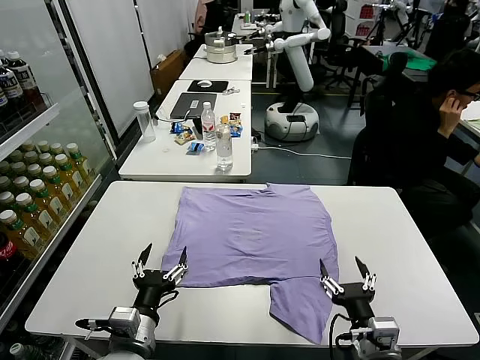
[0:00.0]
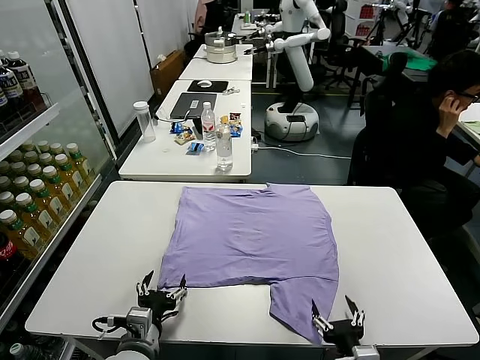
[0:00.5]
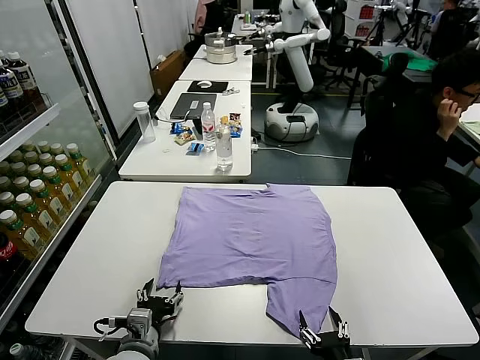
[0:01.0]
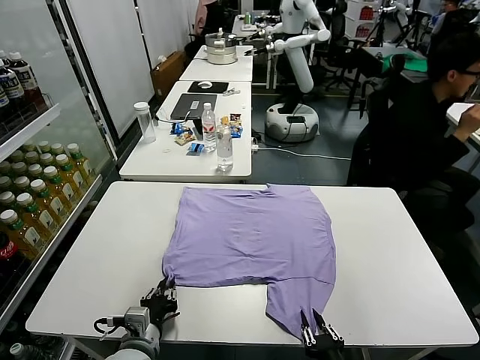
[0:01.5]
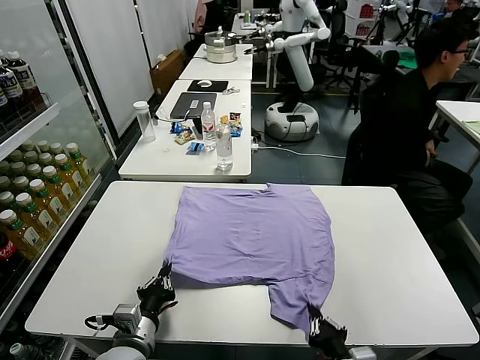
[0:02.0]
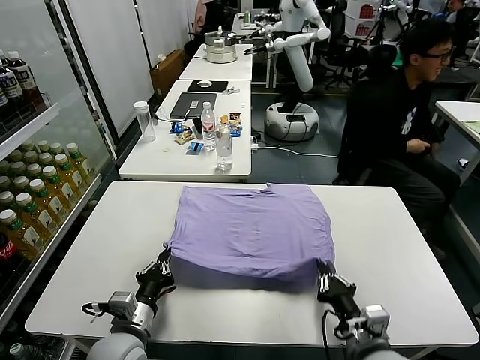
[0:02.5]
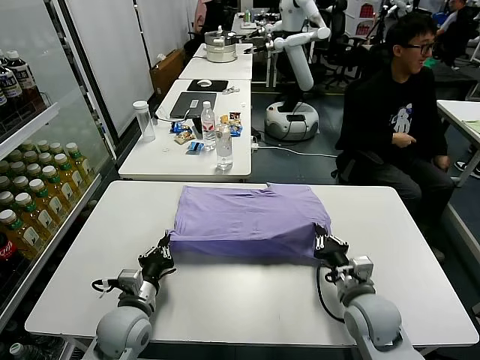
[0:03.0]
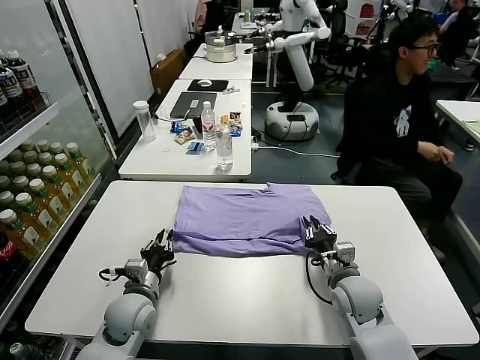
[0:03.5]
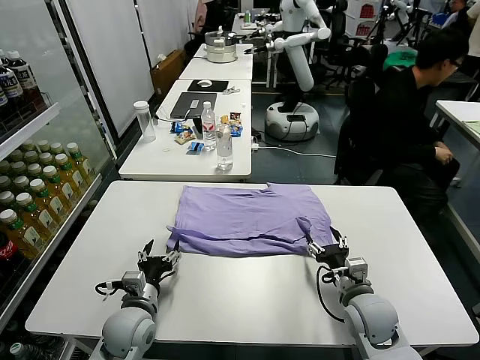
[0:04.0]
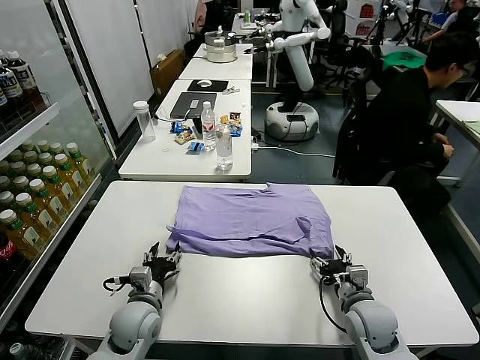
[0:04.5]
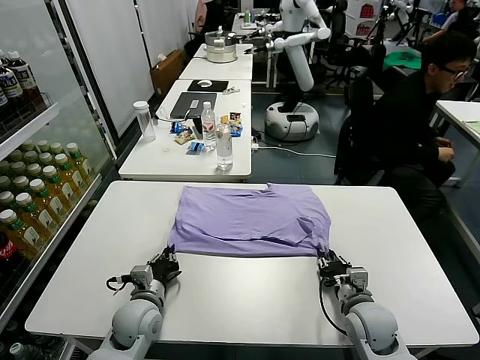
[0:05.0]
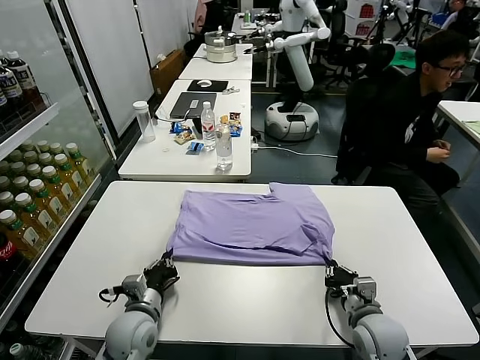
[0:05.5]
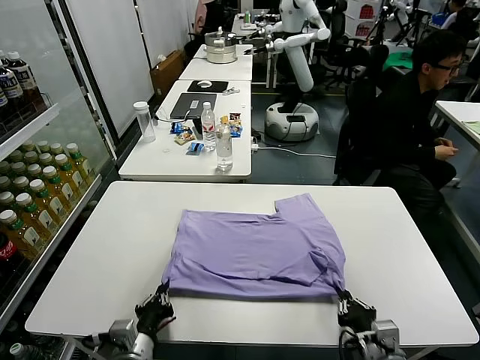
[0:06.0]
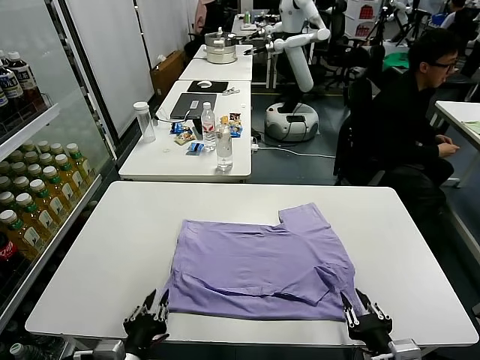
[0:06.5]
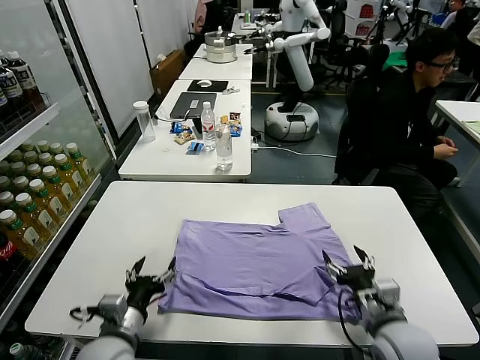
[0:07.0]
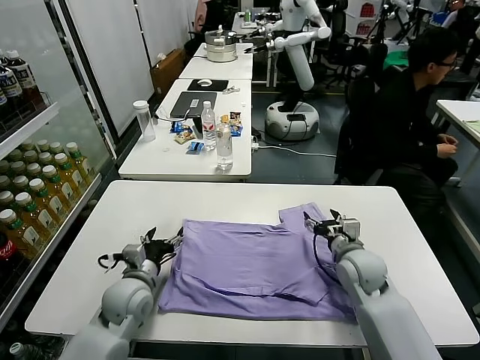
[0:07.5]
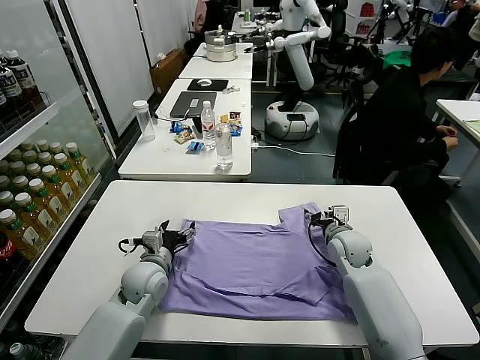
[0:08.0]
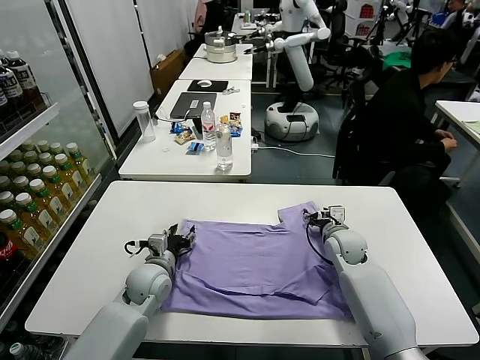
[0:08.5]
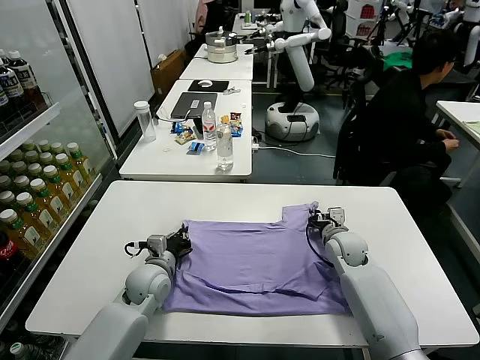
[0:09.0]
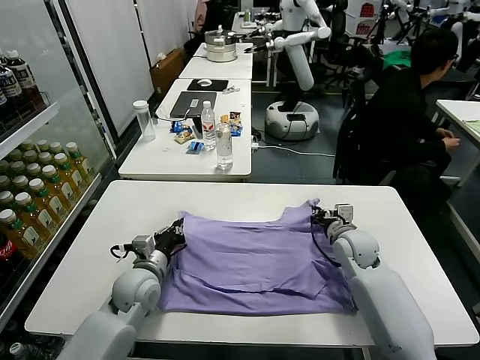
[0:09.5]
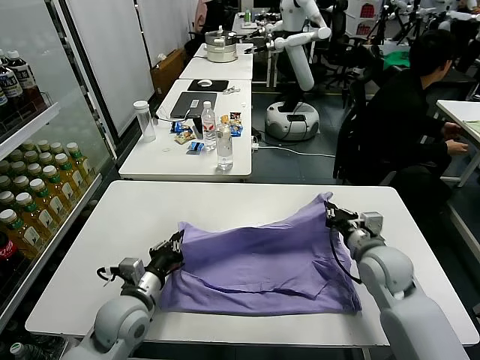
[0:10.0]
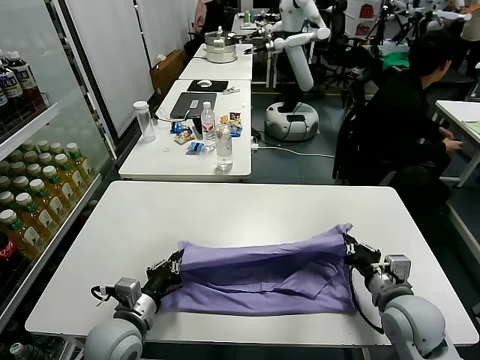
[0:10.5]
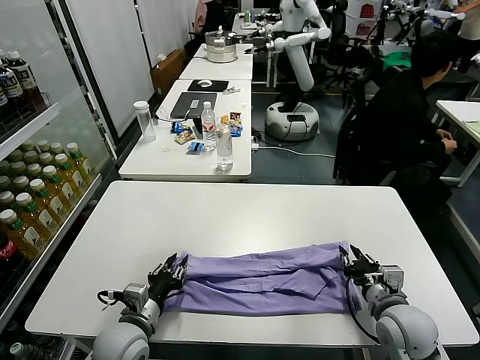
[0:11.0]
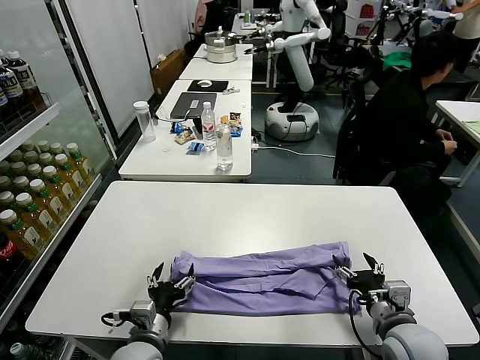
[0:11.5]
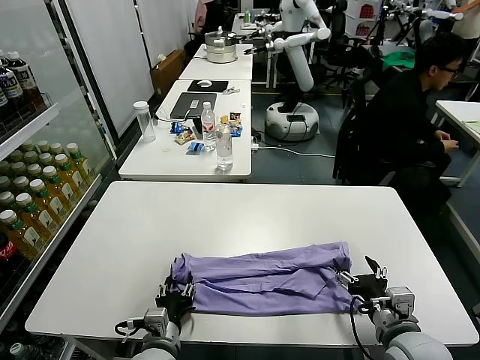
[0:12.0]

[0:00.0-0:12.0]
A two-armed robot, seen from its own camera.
Task of the whole recording: fold and organize the clothes.
Step, 0:00.0 to 0:01.5: use both grippers simultaneously to clamp the lower edge of the clothing fabric.
Step, 0:02.0 to 0:03.5: use both grippers to drag the lower edge of the fabric forward and fold it over the upper edge.
Step, 0:04.0 to 0:06.5: Drag the clothes downward with both gripper.
Step, 0:07.0 to 0:09.0: use both grippers simultaneously to clamp the upper edge of the clothing fabric.
Step, 0:09.5 to 0:11.0: use both grippers to drag the upper edge of the fabric backward and fold it over the lower edge.
0:02.0 to 0:04.0: The right gripper shifts roughly 15 cm forward, and opens up, while the left gripper goes some 10 cm forward, and opens.
0:04.0 to 0:06.0: Both grippers move backward, about 15 cm. The right gripper closes its fingers; the left gripper closes its fingers.
0:06.0 to 0:08.0: The right gripper travels forward by some 30 cm, and opens; the left gripper travels forward by some 20 cm, and opens.
0:08.0 to 0:10.0: The left gripper heads backward, covering roughly 10 cm, and closes up. The right gripper shifts roughly 15 cm backward and upward, and closes its fingers.
0:10.0 to 0:12.0: The left gripper moves backward, to the right and downward, approximately 10 cm, and opens up; the right gripper travels backward by some 15 cm, and opens its fingers.

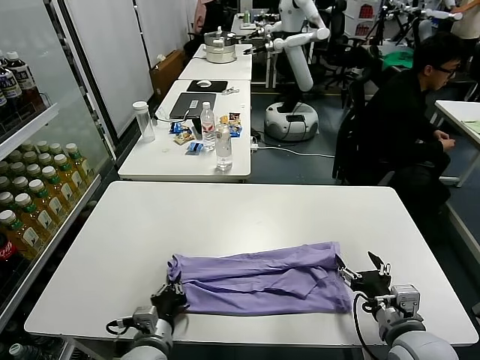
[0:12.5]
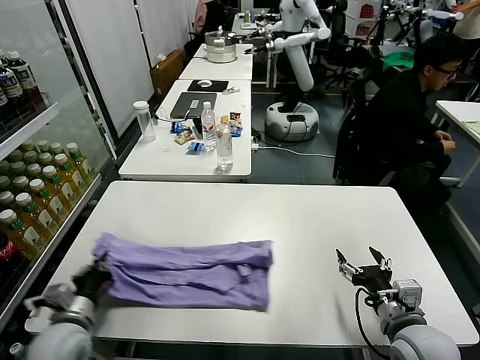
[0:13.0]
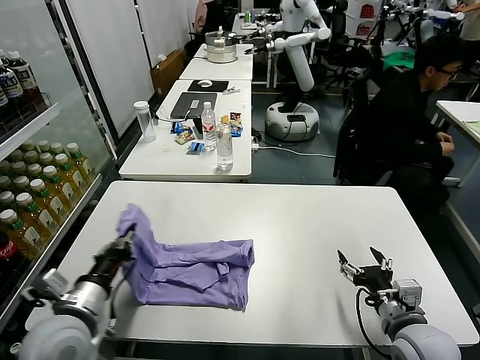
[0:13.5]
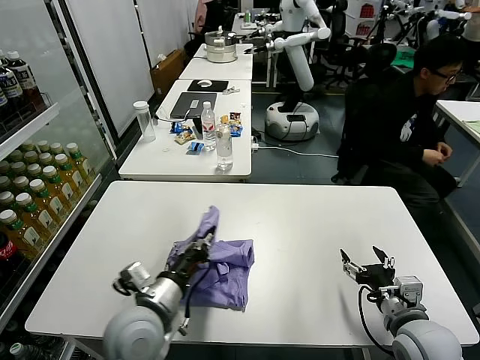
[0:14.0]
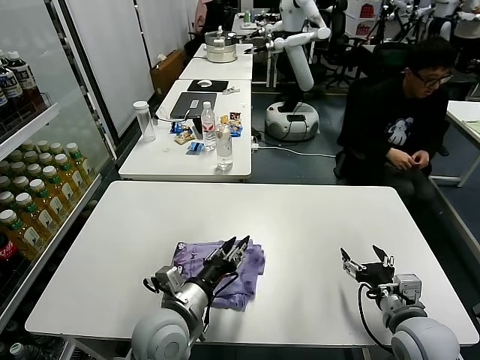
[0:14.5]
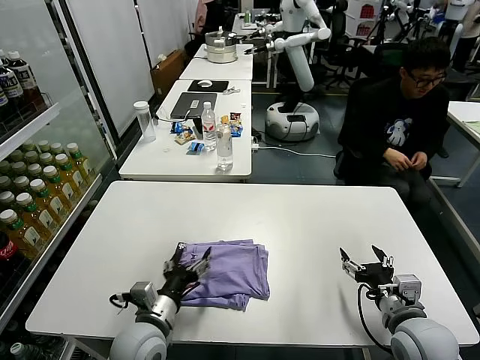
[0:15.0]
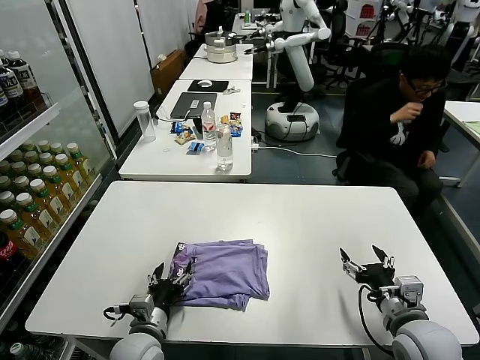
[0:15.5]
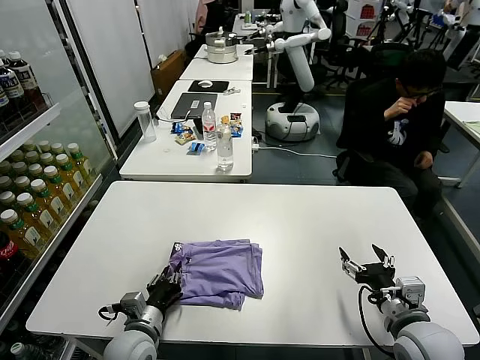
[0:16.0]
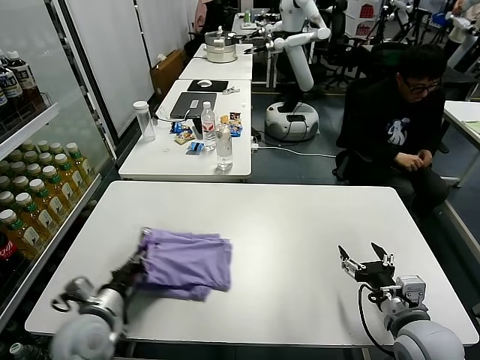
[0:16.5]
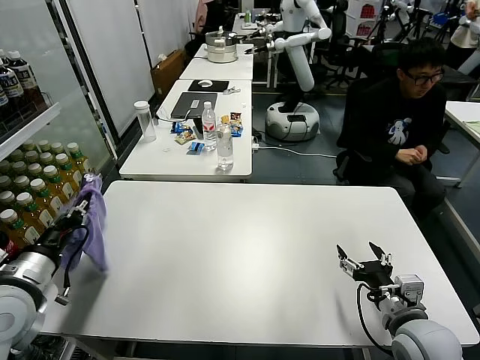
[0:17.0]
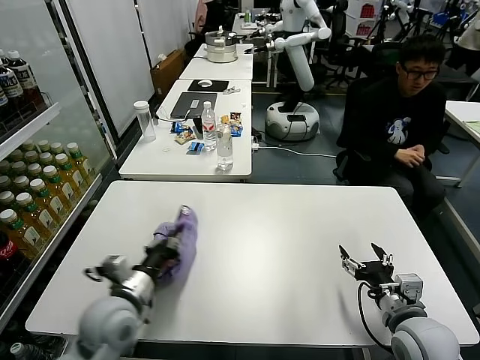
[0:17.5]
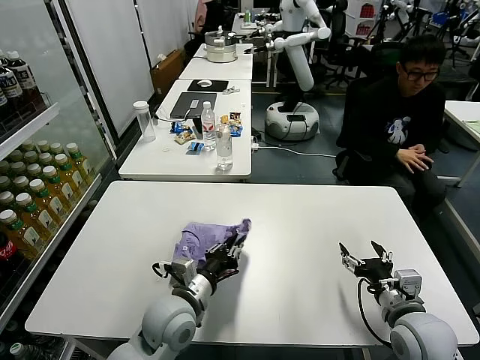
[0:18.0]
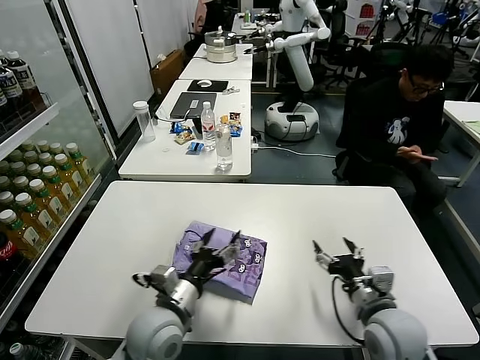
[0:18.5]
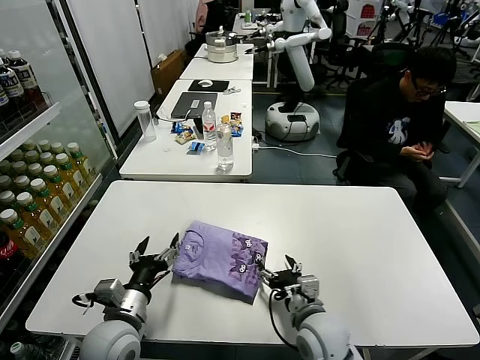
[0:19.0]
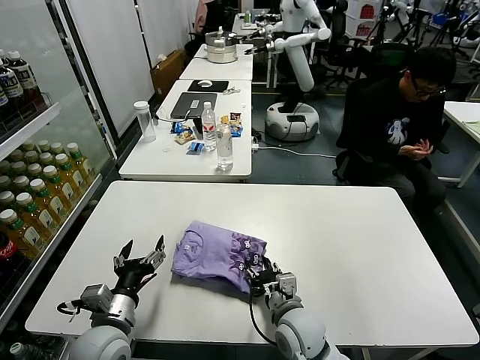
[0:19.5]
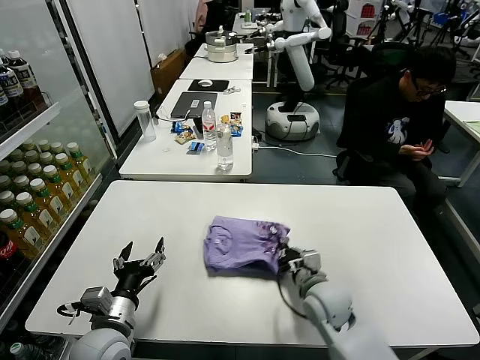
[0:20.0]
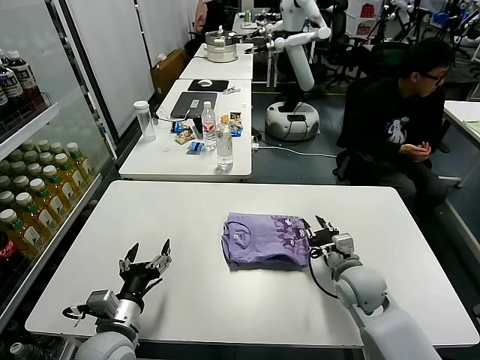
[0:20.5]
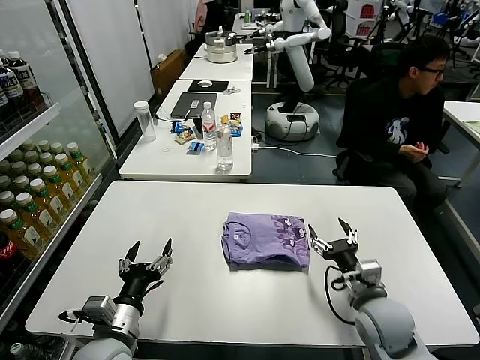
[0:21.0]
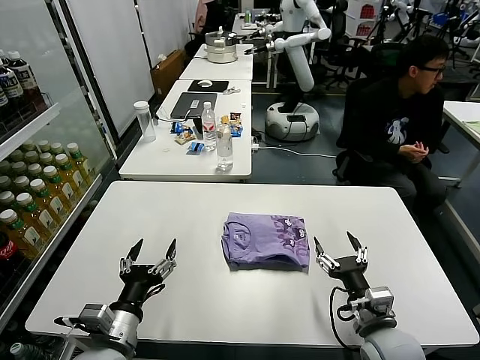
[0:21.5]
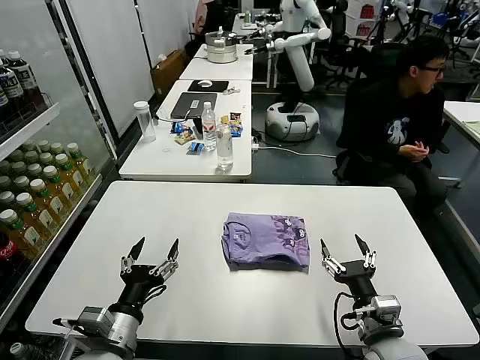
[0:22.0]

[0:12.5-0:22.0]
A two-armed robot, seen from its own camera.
Task of the whole recording: fold and organize the clothes.
Step, 0:13.0 to 0:14.5: use the left gripper to drag the left edge of the fabric to the left and folds it over the right edge.
Step, 0:15.5 to 0:18.5: Flip the folded clothes over with left gripper.
Step, 0:19.0 to 0:21.0: Drag the clothes to the center of the table.
0:12.5 to 0:14.5: The left gripper goes approximately 10 cm upward, goes to the left and returns, about 15 cm each way, and opens.
0:14.5 to 0:16.5: The left gripper moves to the left, some 15 cm, and closes.
0:16.5 to 0:18.0: The left gripper travels to the right by some 15 cm.
0:18.0 to 0:20.0: The left gripper is displaced to the left and backward by roughly 10 cm, and opens up. Meanwhile the right gripper goes roughly 20 cm to the left, forward and downward, and closes its fingers.
0:20.0 to 0:22.0: The right gripper shifts roughly 15 cm backward and to the right, and opens up. Meanwhile the left gripper shifts by approximately 5 cm.
